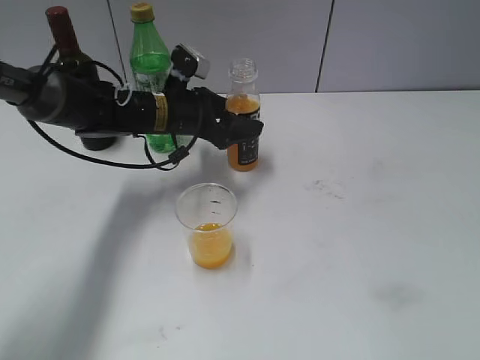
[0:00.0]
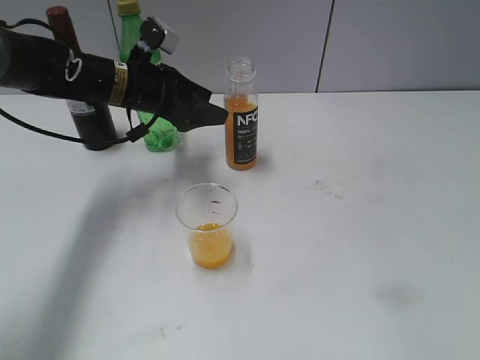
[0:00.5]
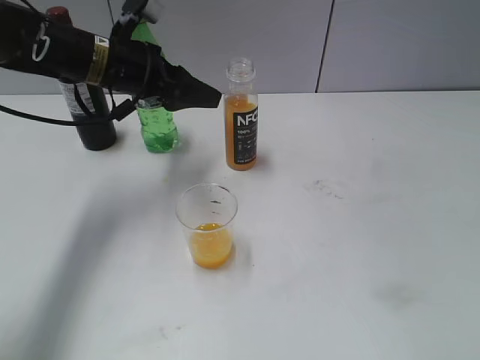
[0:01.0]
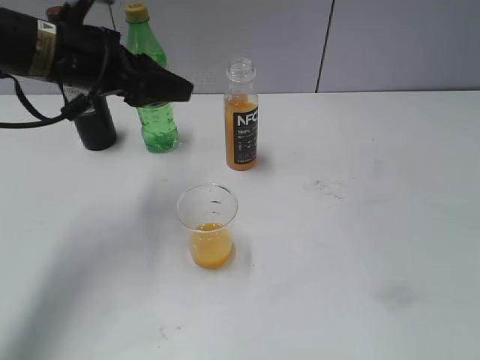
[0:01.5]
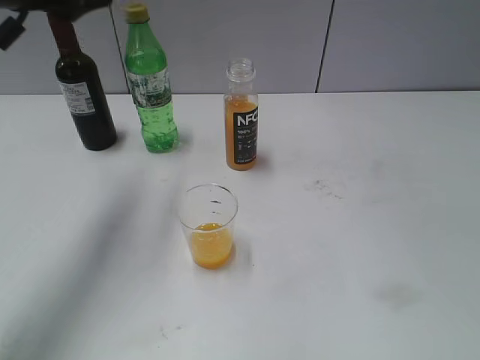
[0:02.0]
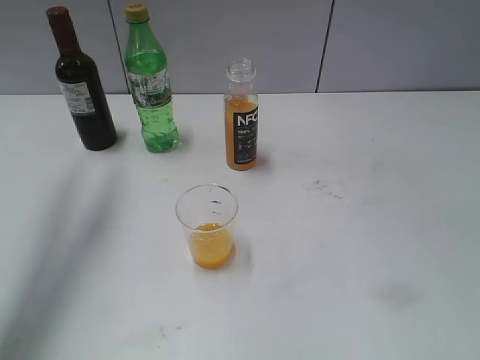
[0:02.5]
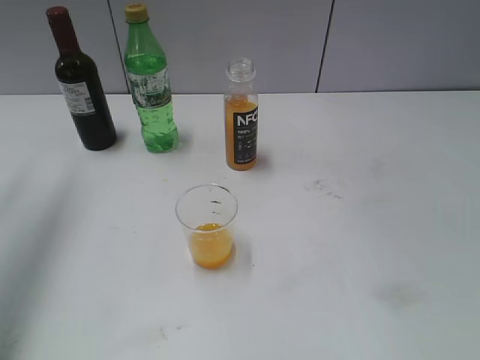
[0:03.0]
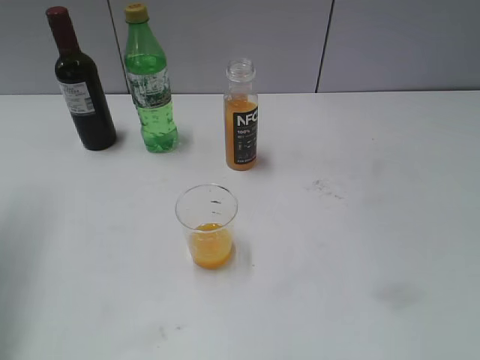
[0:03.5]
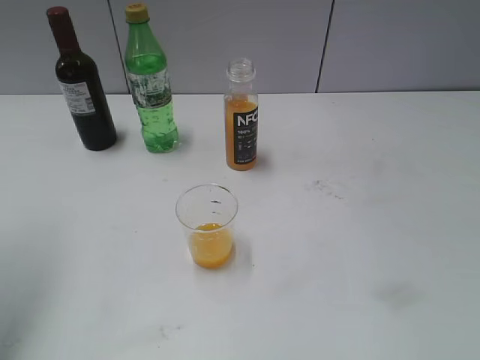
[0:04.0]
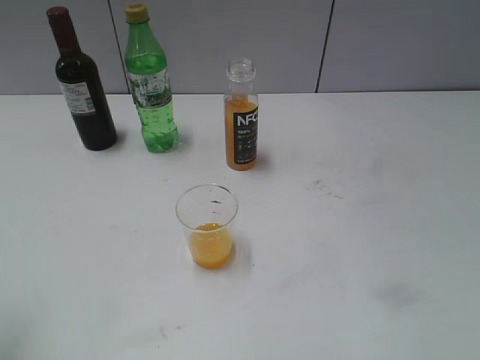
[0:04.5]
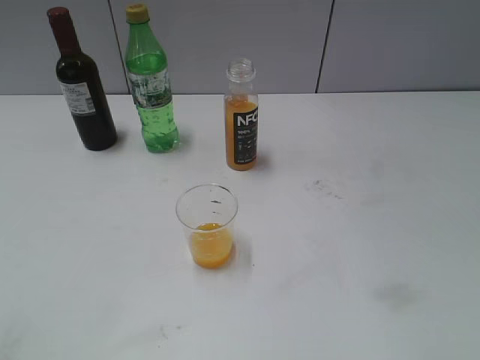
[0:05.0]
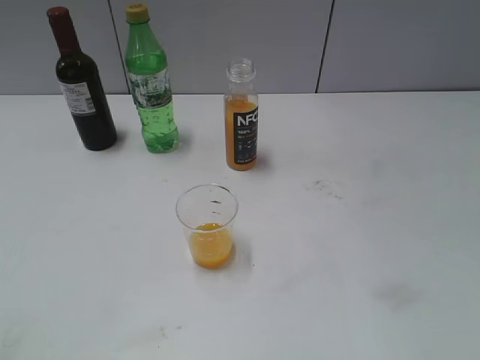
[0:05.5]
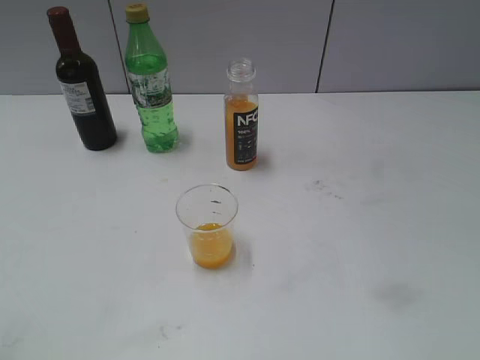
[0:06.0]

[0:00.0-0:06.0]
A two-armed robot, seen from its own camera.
0:00.0 to 0:02.0: The left gripper shifts roughly 25 cm upward, to the left and backward.
0:02.0 to 0:04.0: The left gripper heads to the left and backward, covering some 15 cm, and opens its fingers.
0:04.0 to 0:06.0: The left gripper travels backward by some 25 cm.

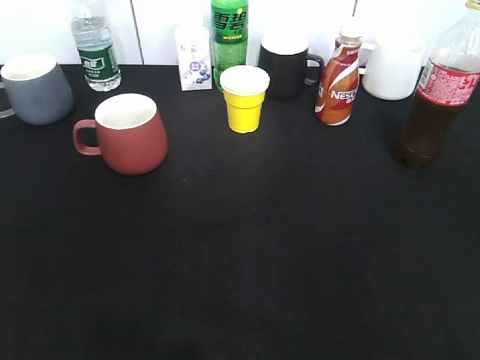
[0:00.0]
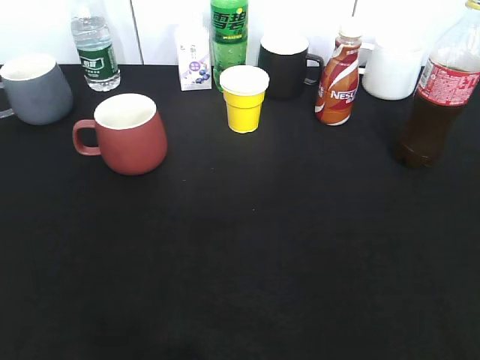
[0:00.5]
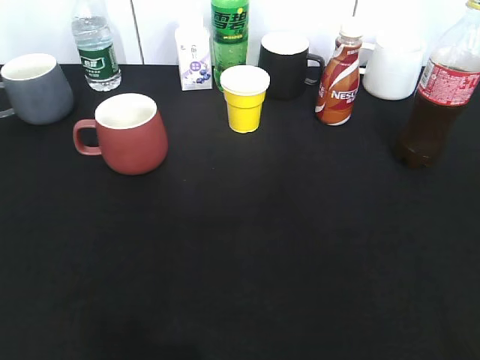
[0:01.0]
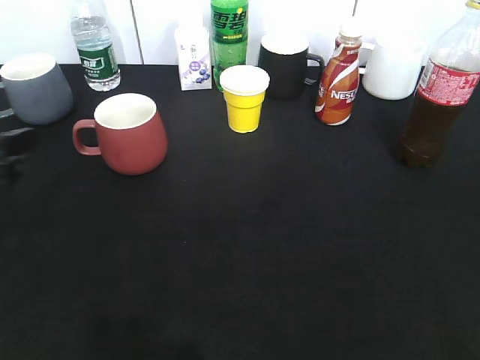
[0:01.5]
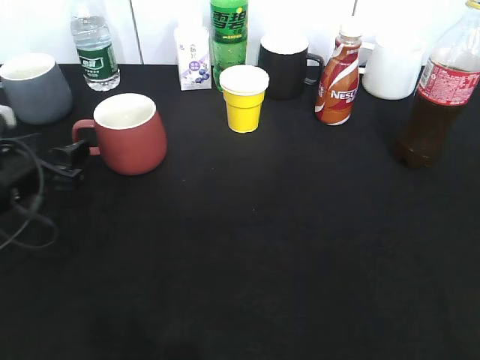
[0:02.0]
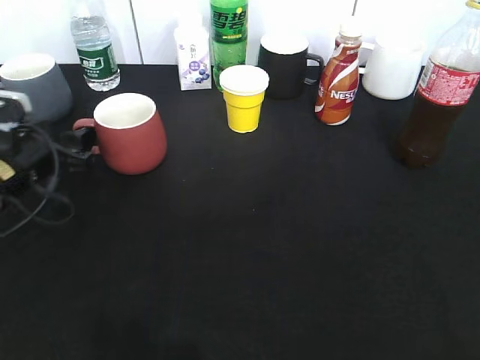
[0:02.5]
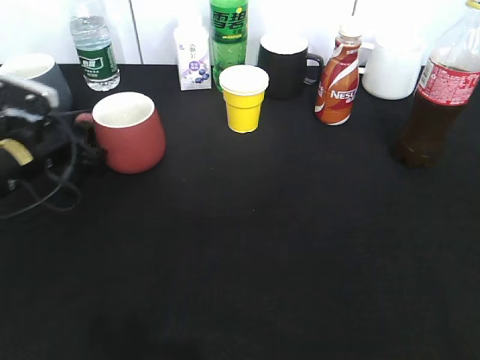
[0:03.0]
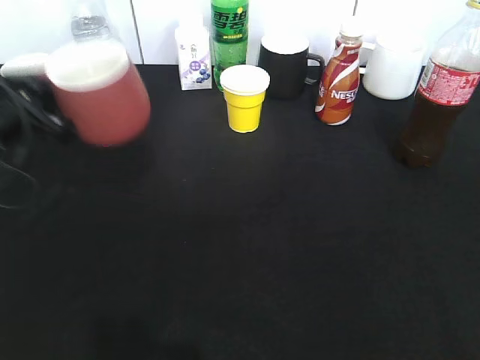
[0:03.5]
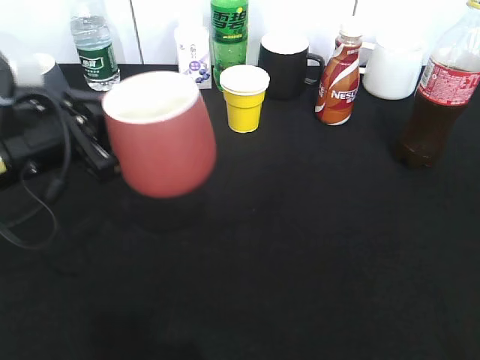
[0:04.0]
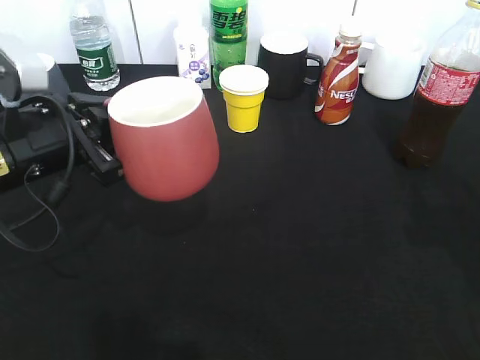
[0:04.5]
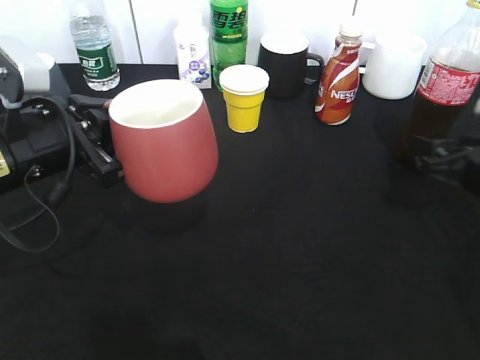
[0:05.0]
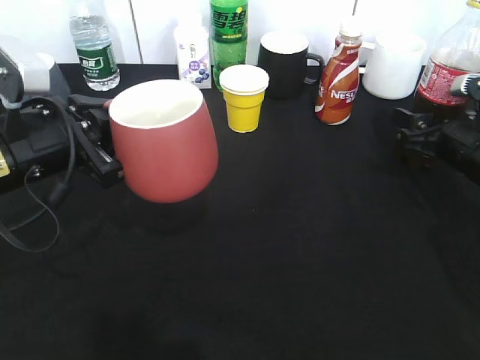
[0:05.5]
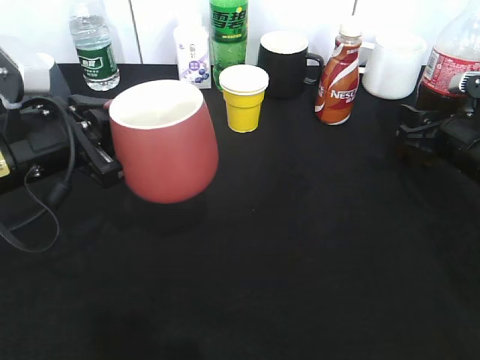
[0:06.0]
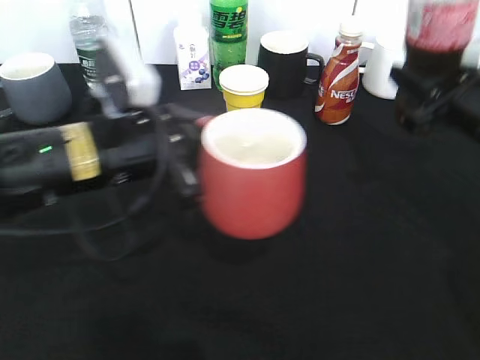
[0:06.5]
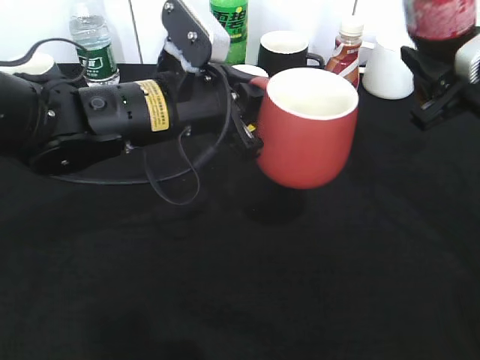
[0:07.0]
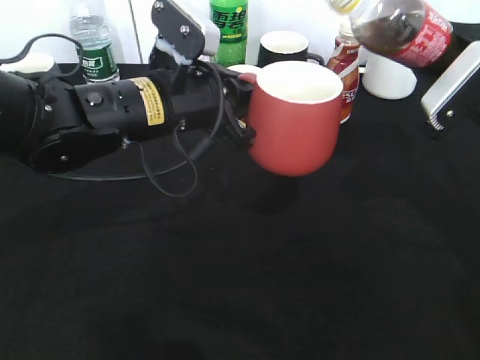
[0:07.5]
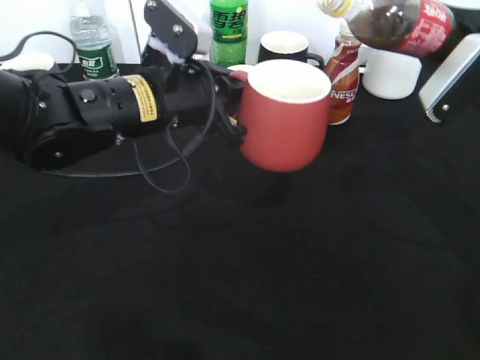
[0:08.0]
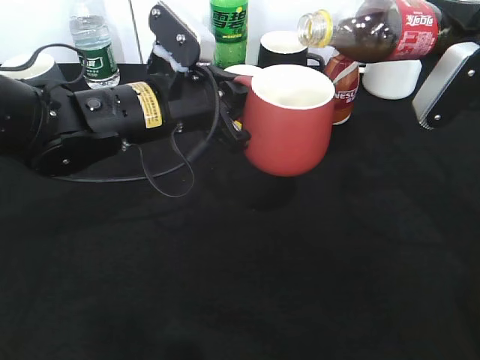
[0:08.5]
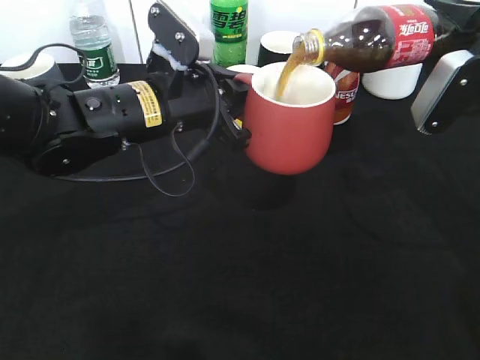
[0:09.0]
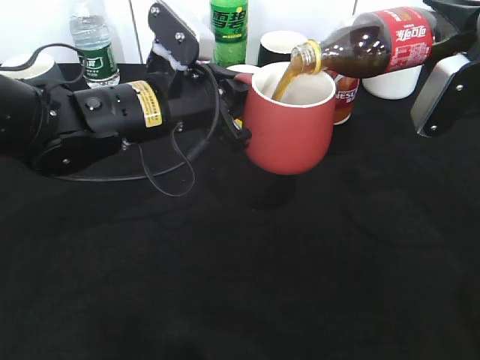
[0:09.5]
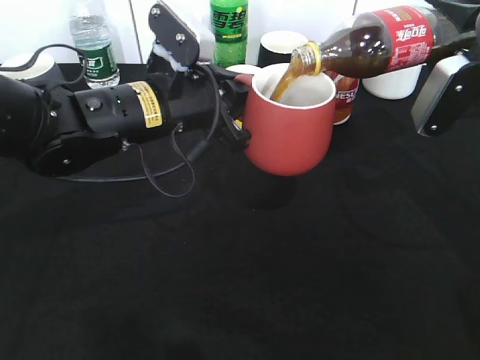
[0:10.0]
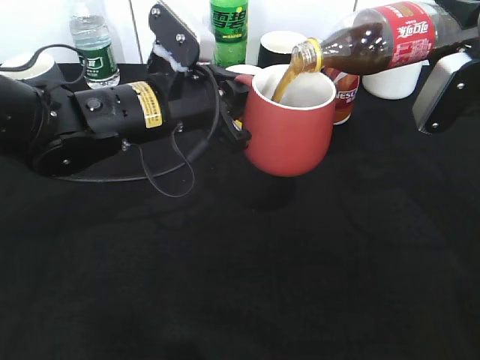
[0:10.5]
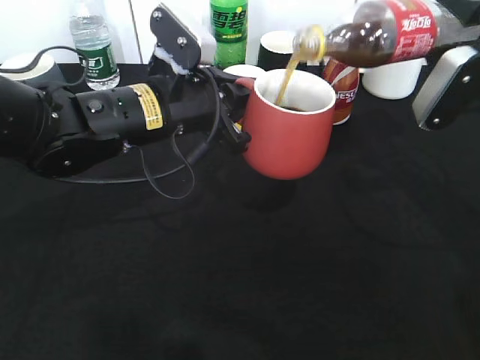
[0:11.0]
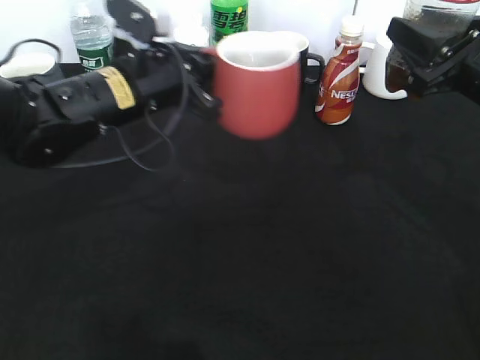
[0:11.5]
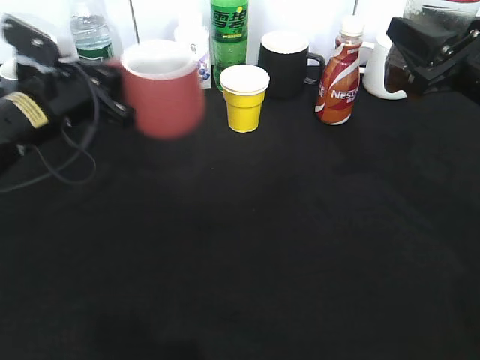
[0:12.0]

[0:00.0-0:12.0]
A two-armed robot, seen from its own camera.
Step, 0:00.0 to 0:03.0: Grasp the red cup with left gripper.
Step, 0:03.5 to 0:04.5: Lift the red cup with left gripper.
Step, 0:06.5 to 0:11.0: Pour the cola from bottle to cup with right gripper.
0:00.0 to 0:02.0: The left gripper is displaced forward and downward by about 30 cm, and opens its fingers.
0:02.0 to 0:04.0: The left gripper moves upward and to the right, about 10 cm, reaches approximately 10 cm forward, then returns, and closes.
0:04.0 to 0:06.0: The right gripper goes about 35 cm forward and downward, and closes up.
0:06.0 to 0:08.0: The right gripper moves upward, some 10 cm; the left gripper heads to the right and forward, covering roughly 15 cm.
0:10.0 to 0:12.0: The left gripper moves to the left, some 15 cm.

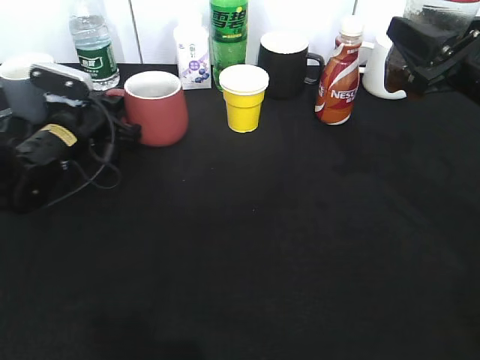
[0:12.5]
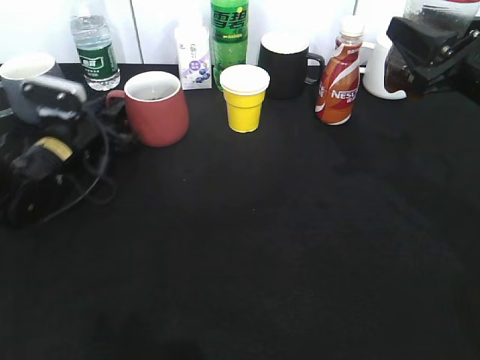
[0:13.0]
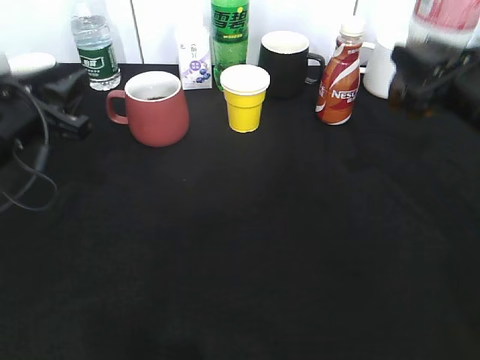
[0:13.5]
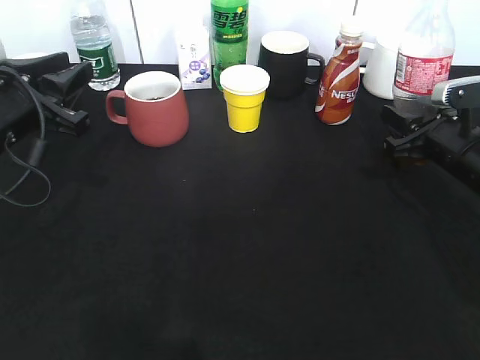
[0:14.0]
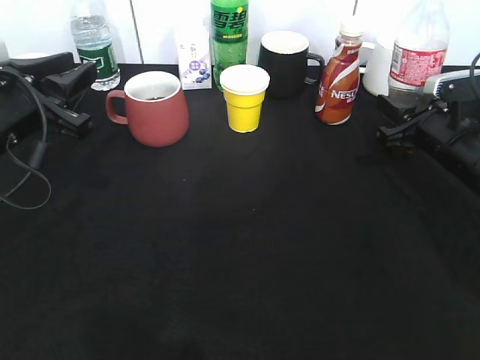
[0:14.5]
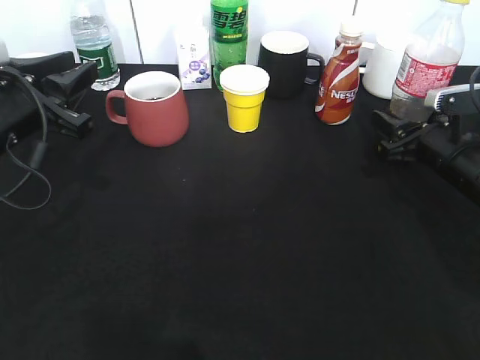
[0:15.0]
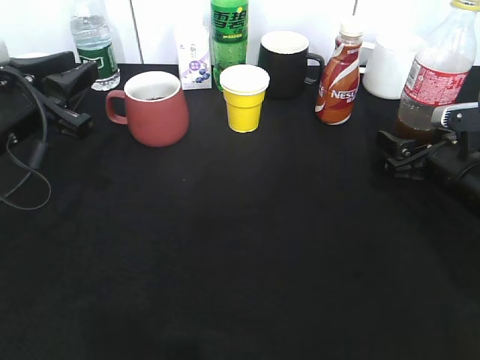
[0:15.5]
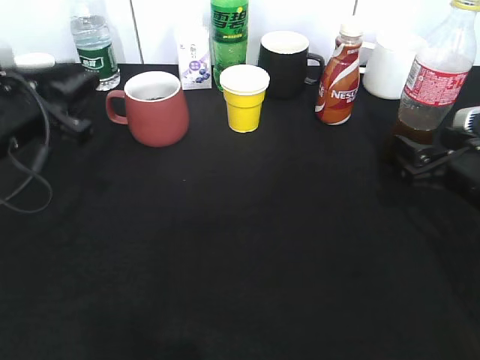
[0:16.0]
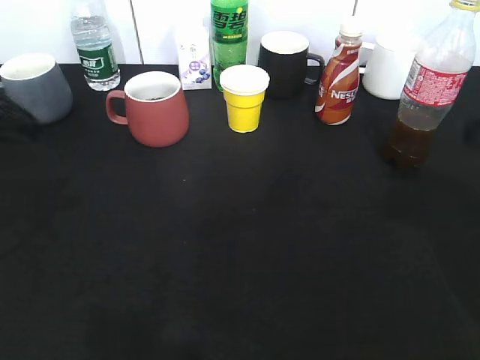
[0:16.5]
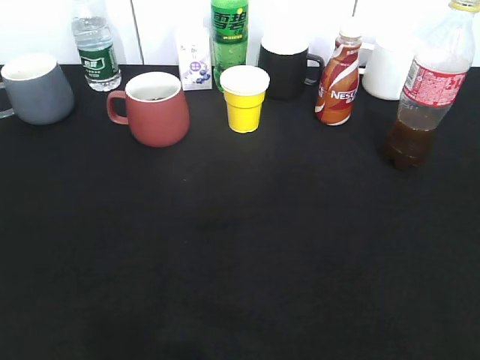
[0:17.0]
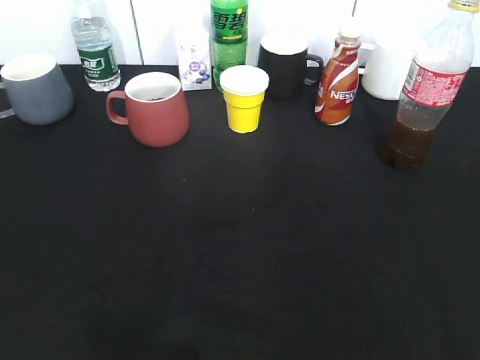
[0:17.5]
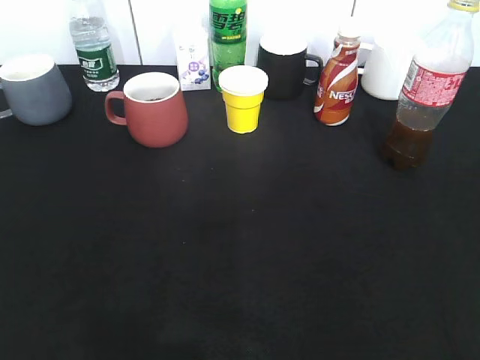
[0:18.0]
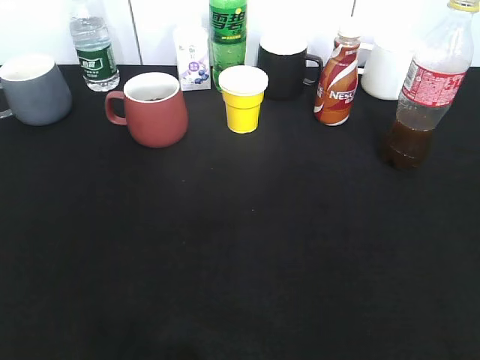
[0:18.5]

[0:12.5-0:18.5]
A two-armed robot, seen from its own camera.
Step, 0:14.0 to 0:16.0: Place the cola bottle on the table with right gripper.
0:12.5 to 0:14.5: The right gripper heads downward and forward, covering roughly 15 cm. The left gripper travels backward and upward by roughly 15 cm, and opens its fingers.
0:14.5 to 0:16.5: The left gripper moves upward and backward, some 10 cm. Meanwhile the right gripper is displaced upward and backward by roughly 20 cm, and opens.
0:16.5 to 0:18.5: The grippers both shift backward by approximately 20 cm.

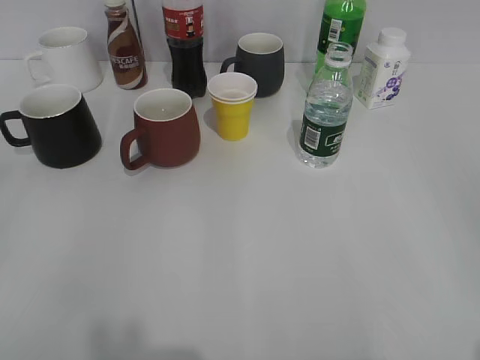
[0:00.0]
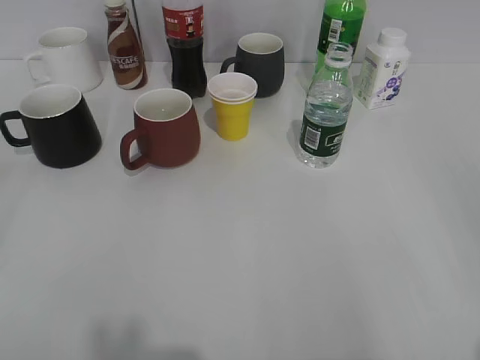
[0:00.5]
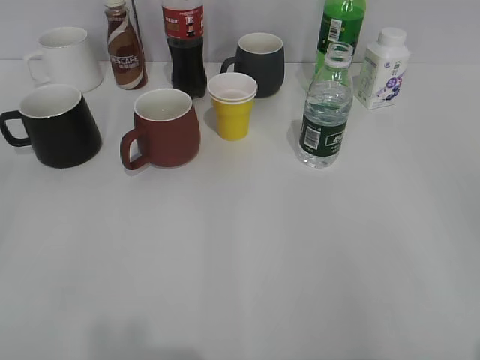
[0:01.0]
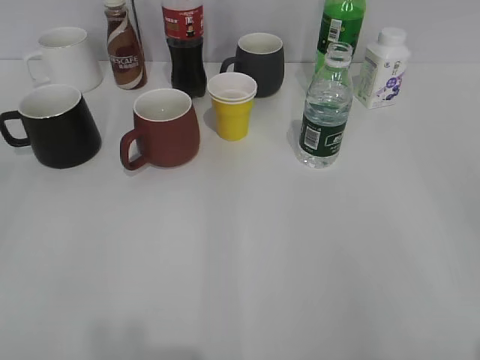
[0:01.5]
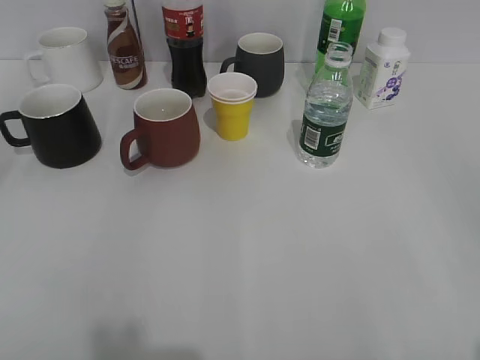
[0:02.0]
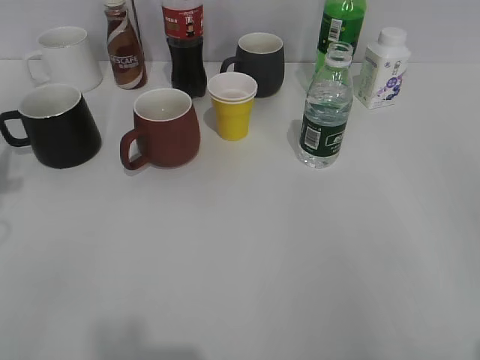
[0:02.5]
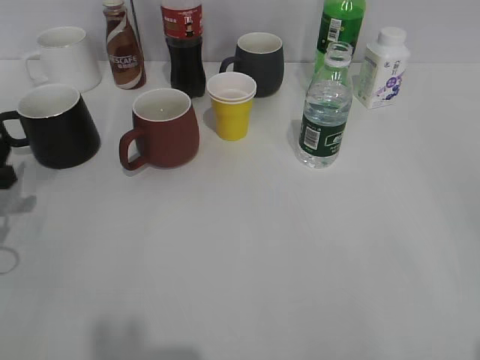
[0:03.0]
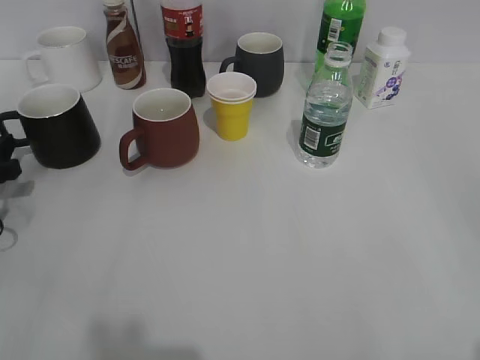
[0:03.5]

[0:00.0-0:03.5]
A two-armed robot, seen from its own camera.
0:02.0 to 0:03.5: The left gripper travels downward and forward by about 30 cm.
